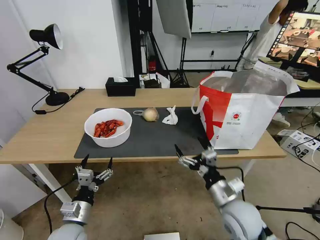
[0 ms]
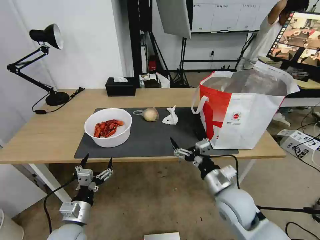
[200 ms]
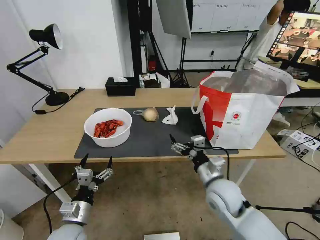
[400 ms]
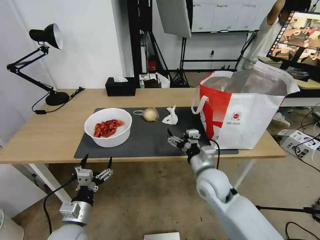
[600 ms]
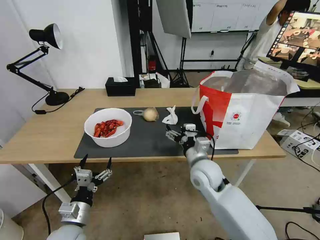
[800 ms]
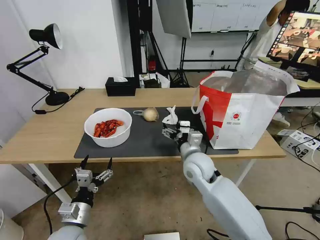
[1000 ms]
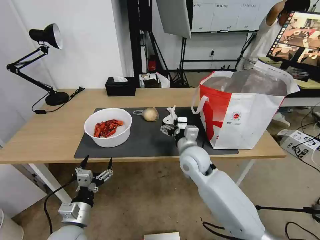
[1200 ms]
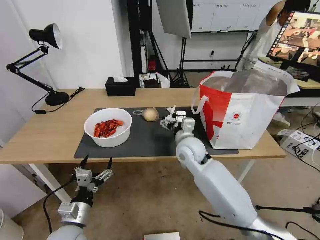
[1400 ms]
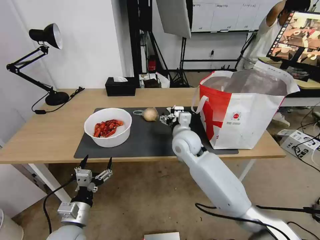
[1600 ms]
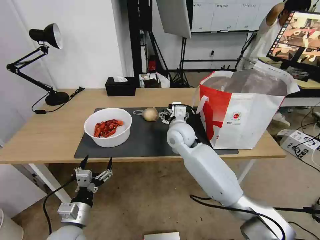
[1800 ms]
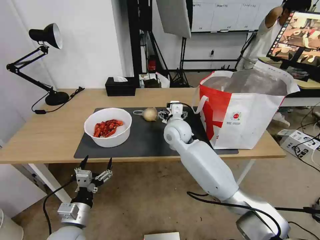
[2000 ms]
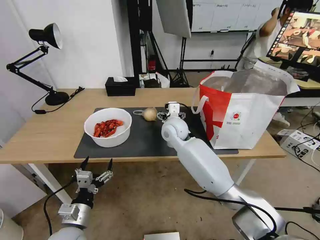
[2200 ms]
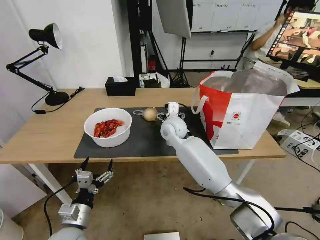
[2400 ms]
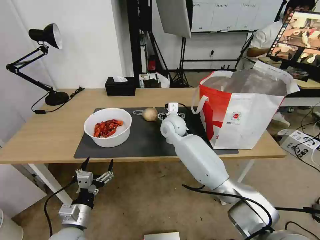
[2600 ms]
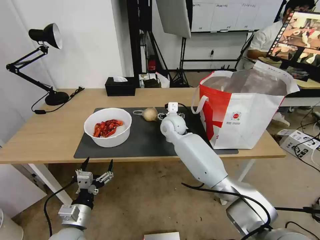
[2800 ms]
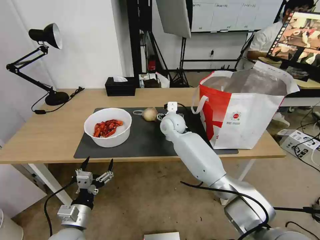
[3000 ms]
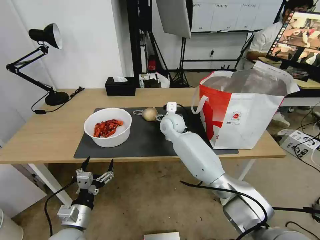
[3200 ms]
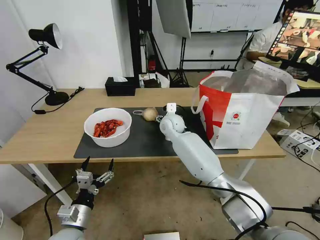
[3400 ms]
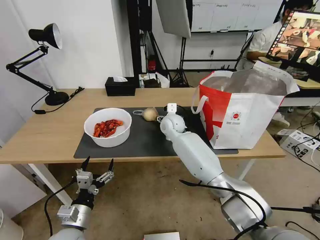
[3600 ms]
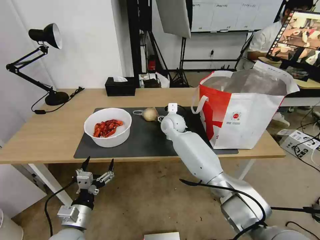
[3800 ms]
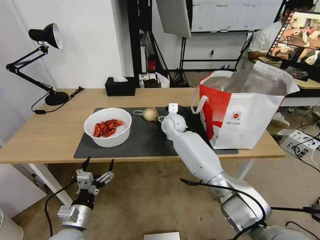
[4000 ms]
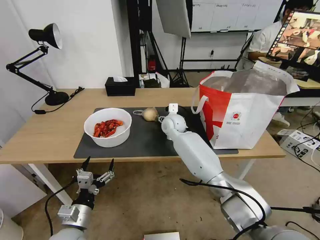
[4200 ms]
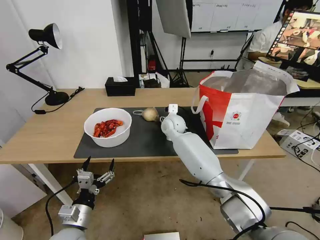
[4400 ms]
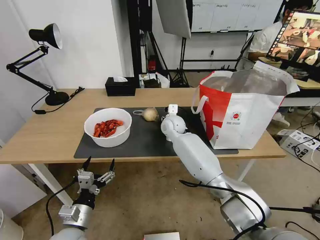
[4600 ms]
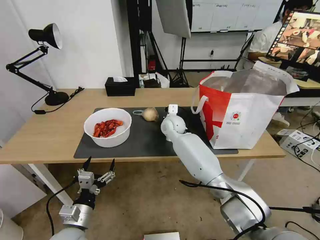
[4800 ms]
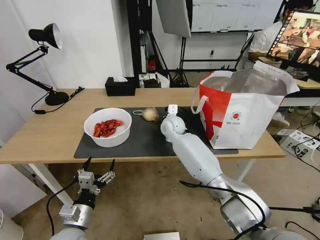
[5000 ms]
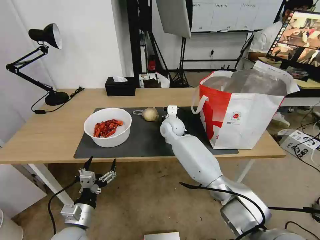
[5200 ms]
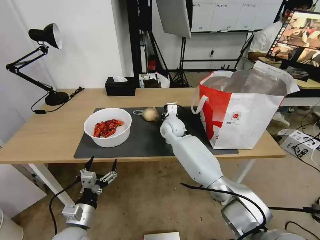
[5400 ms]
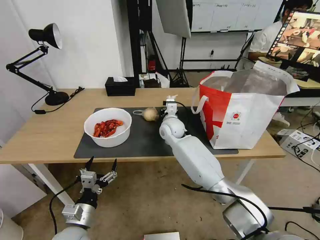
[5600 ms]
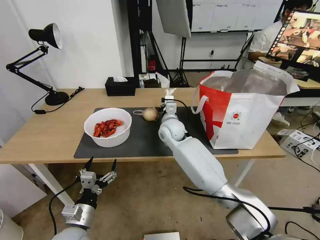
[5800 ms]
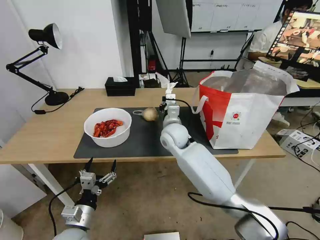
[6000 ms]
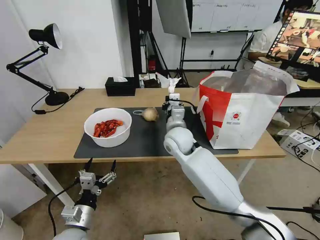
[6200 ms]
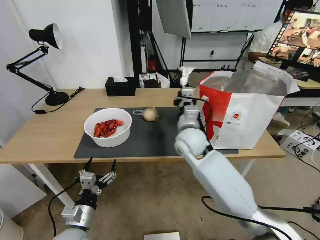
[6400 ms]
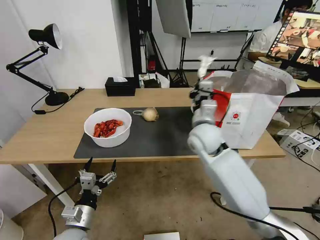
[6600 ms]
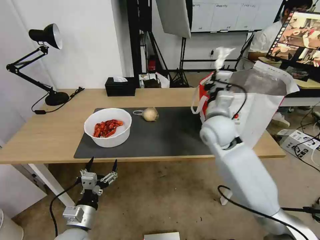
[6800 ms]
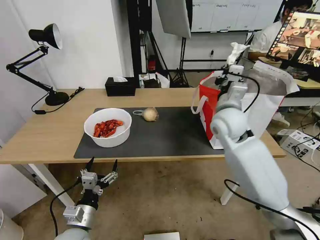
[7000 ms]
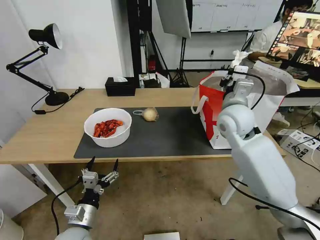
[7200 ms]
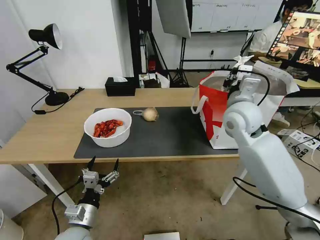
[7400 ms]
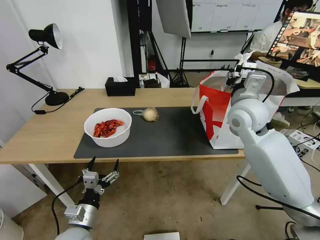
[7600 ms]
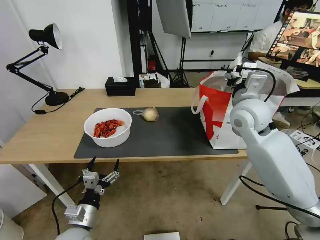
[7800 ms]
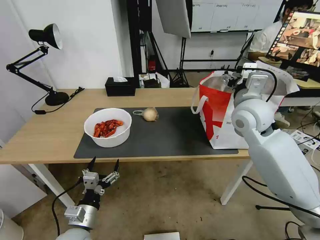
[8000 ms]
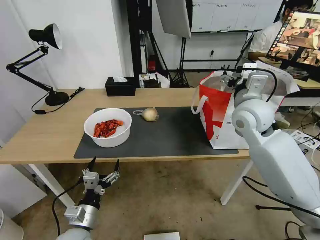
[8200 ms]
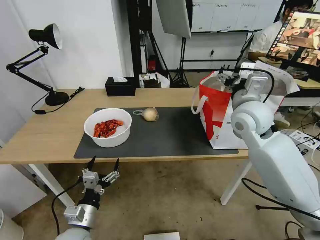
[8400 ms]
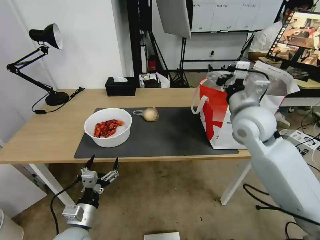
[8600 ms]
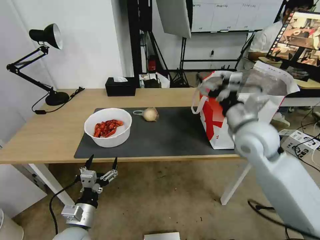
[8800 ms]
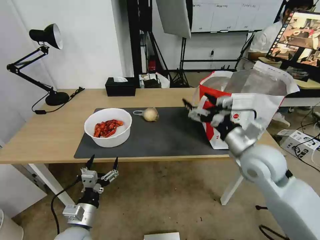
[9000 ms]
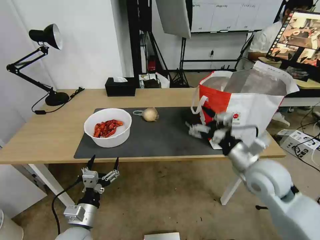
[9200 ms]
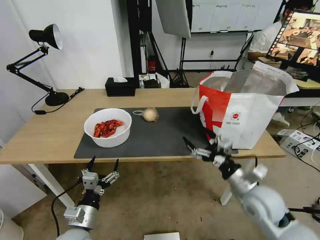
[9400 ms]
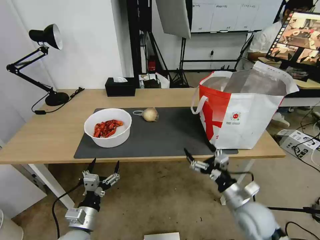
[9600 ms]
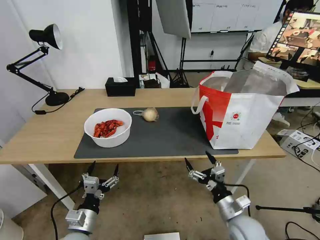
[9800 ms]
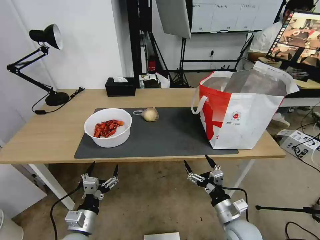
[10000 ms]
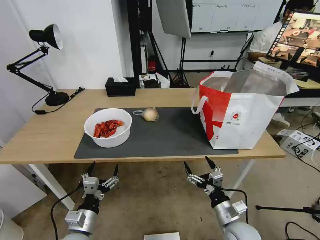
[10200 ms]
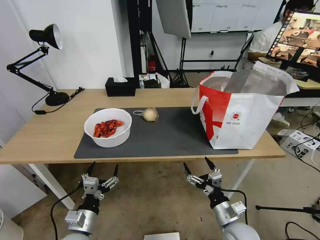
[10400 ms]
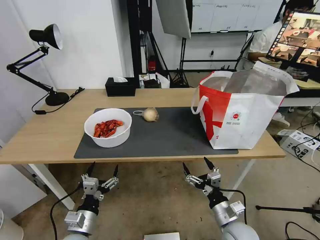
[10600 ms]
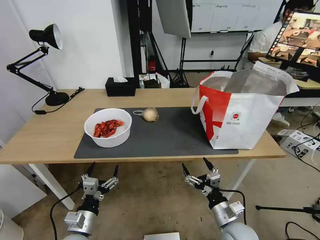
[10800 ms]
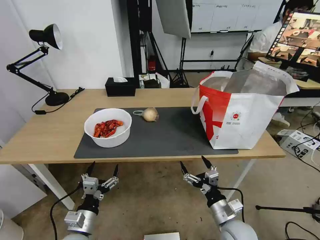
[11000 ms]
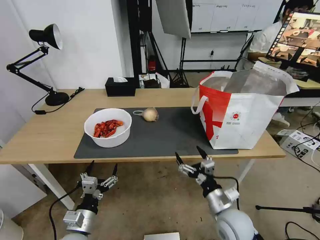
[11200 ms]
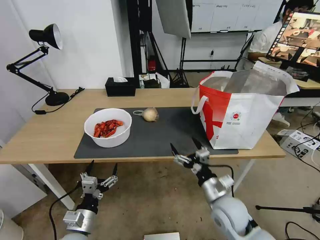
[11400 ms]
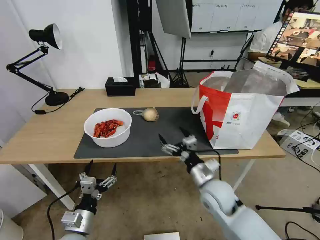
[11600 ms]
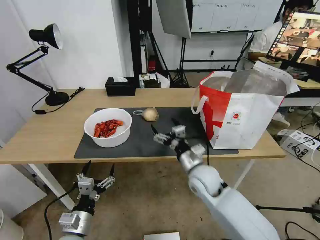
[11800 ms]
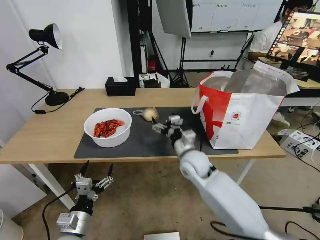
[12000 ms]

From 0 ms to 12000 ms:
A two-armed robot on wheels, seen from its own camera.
Task of the whole recording: Pick up the trash from the table and place it into the takeout bag.
From 0 ms to 1600 ms: The right gripper is displaced forward and to the left by about 25 cm.
From 1600 ms to 3000 ms: The right gripper travels forward by roughly 10 cm.
From 3000 ms to 4400 ms: The grippers move only a little.
From 4400 ms to 6000 ms: The right gripper shifts approximately 10 cm backward, and closes.
From 6000 ms to 7600 ms: The right gripper heads to the right and upward, covering about 25 cm, and opens its fingers.
From 7600 ms to 9000 ms: The right gripper moves backward and downward, some 15 cm, and opens up.
From 9000 ms to 10400 ms: The right gripper shifts roughly 25 cm downward and backward.
From 10400 ms to 12000 ms: The right gripper shifts some 25 cm forward, to the left and upward.

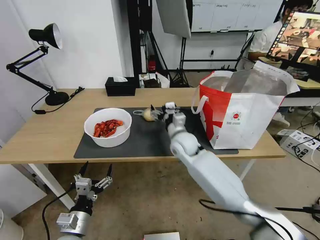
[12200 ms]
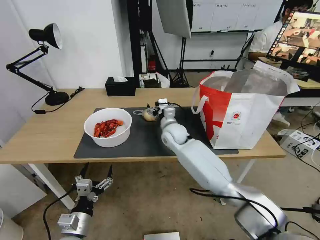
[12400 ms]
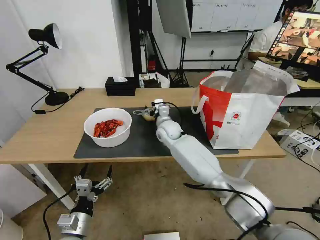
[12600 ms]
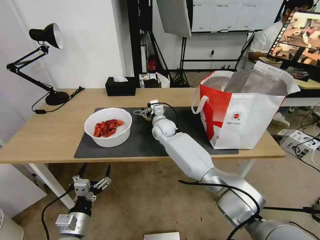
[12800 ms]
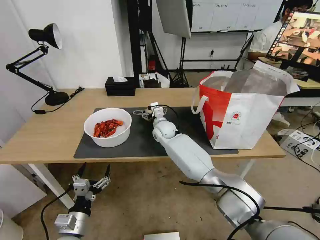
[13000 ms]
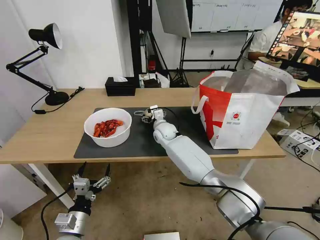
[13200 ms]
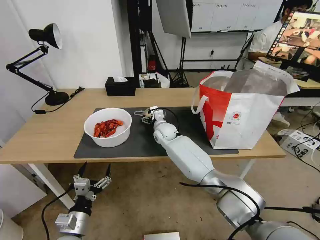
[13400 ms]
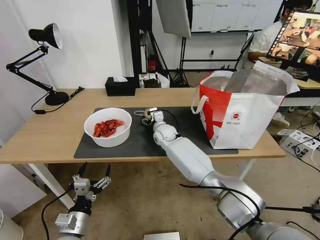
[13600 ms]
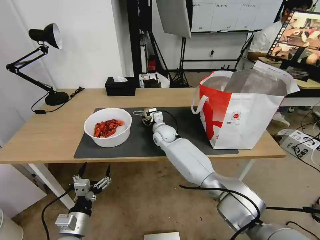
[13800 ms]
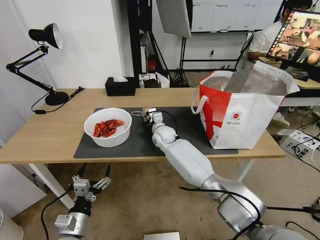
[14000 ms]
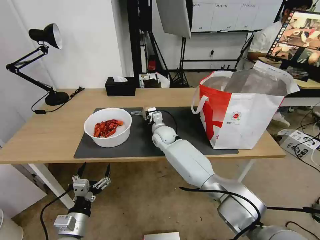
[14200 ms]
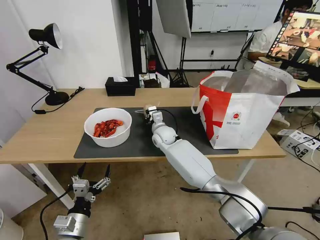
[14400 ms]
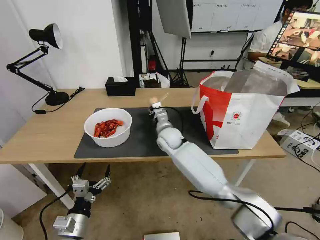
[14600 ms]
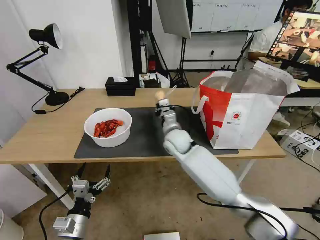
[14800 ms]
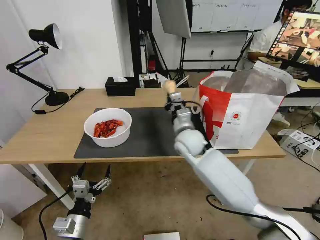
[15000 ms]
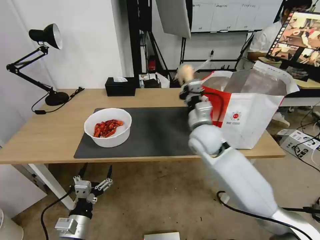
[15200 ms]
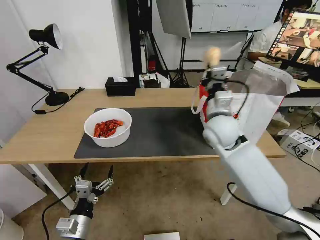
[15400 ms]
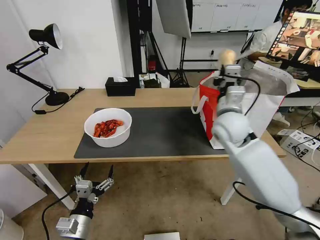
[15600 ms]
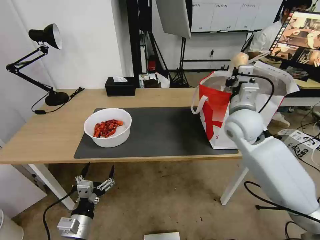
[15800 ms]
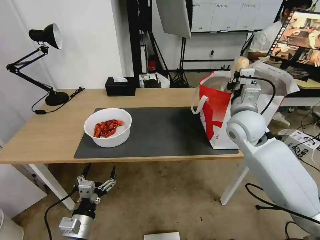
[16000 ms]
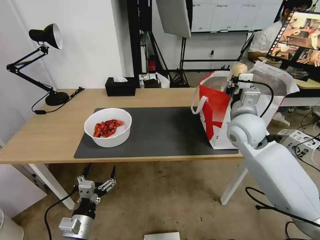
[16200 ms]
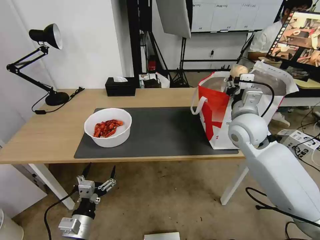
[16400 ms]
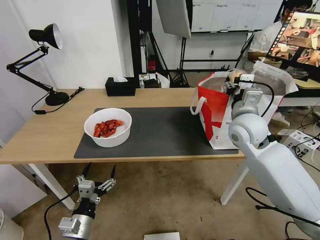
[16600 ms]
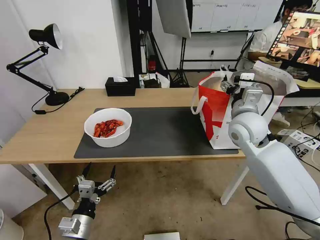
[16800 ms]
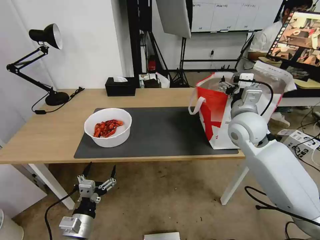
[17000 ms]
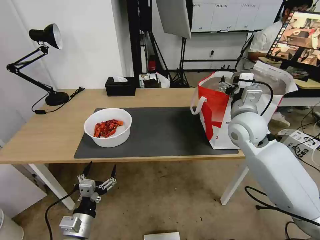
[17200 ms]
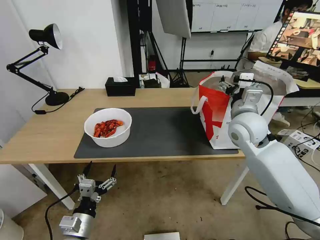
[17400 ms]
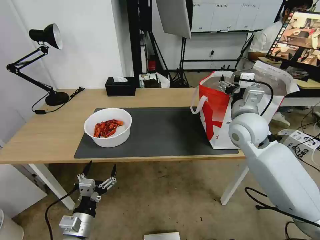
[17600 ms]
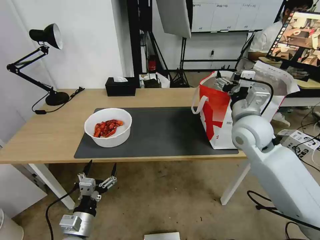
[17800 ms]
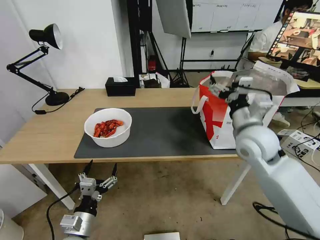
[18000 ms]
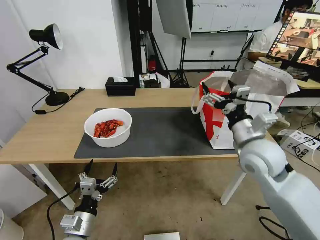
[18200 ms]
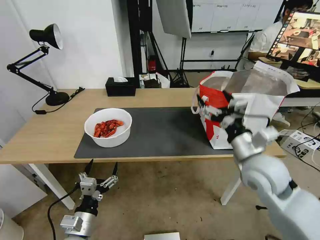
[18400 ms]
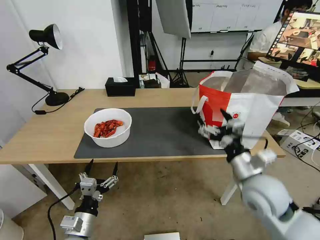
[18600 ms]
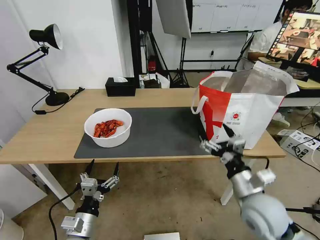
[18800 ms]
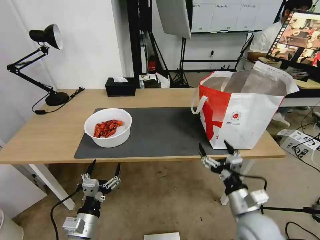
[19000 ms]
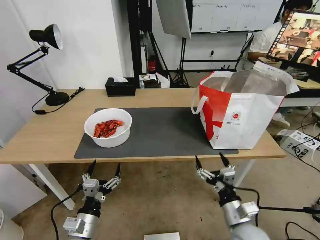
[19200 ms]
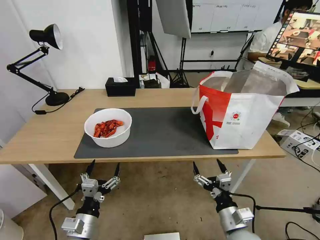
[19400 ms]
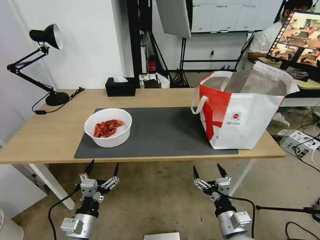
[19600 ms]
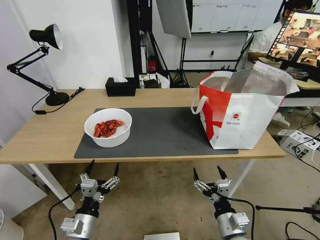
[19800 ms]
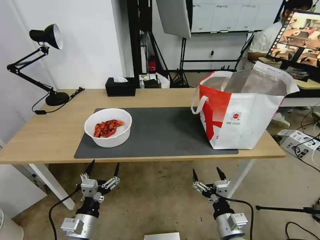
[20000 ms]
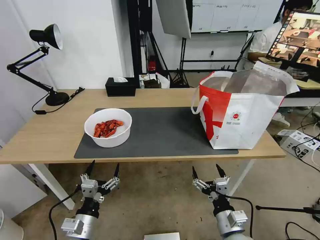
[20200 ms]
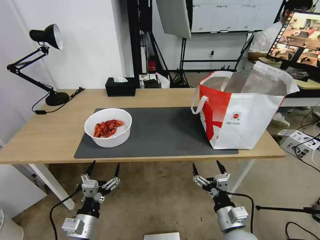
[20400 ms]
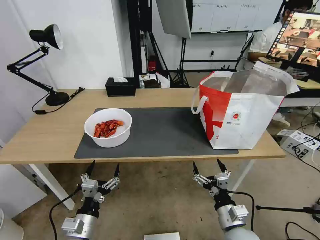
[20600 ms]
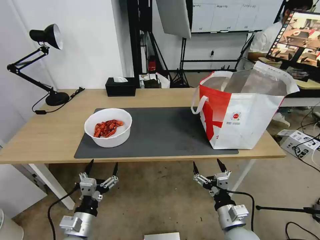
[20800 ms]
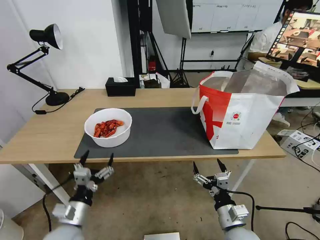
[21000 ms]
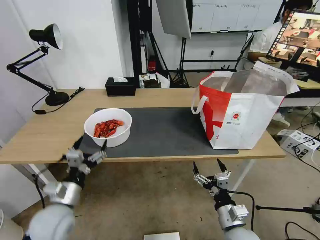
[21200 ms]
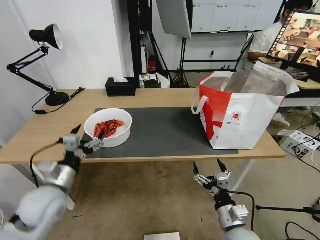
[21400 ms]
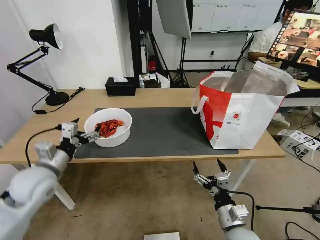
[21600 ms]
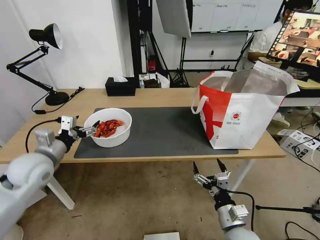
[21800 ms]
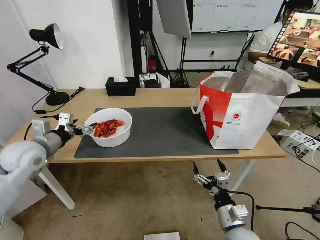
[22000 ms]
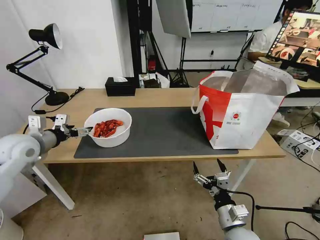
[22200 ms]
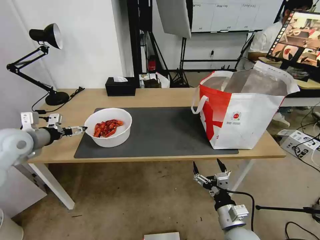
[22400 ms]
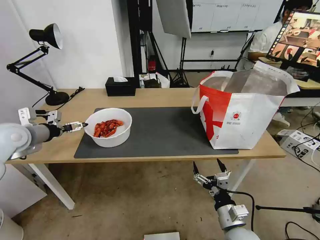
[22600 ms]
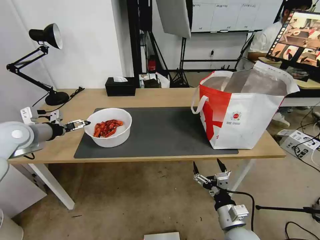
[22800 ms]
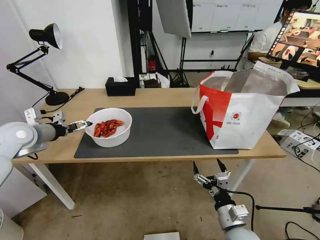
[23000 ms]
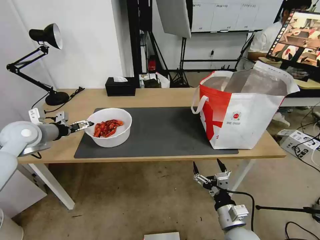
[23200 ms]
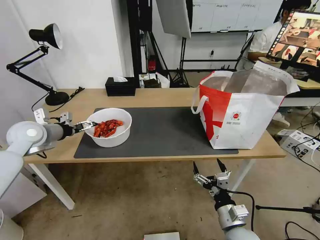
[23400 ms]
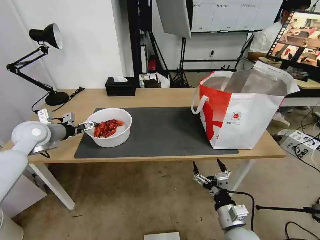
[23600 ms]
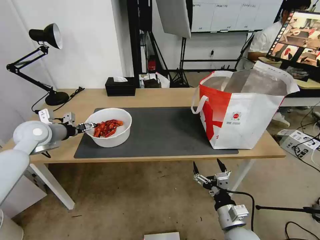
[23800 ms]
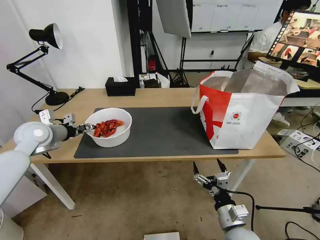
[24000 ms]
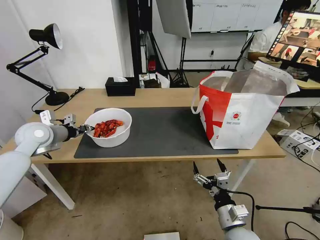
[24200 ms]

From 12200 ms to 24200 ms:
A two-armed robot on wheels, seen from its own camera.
Task of the whole recording: Pick up the trash from the table and place it into the takeout bag.
From 12200 ms to 13800 ms: The right gripper heads forward, to the left and downward, covering approximately 10 cm.
From 13800 ms to 15200 ms: The right gripper heads backward, upward and to the right, covering roughly 20 cm, and closes its fingers.
From 15200 ms to 16600 ms: The right gripper travels to the right and upward by some 10 cm, and opens.
From 16600 ms to 18200 ms: The right gripper is displaced backward by approximately 10 cm.
From 18200 ms to 19800 ms: The right gripper goes roughly 30 cm downward and backward.
From 19800 ms to 21200 ms: The left gripper heads forward and upward, covering some 10 cm.
From 21200 ms to 22600 ms: The left gripper shifts roughly 30 cm forward, upward and to the left.
From 22600 ms to 24200 ms: The left gripper changes place by approximately 5 cm, and closes.
